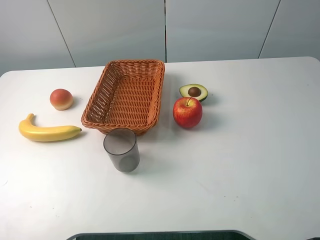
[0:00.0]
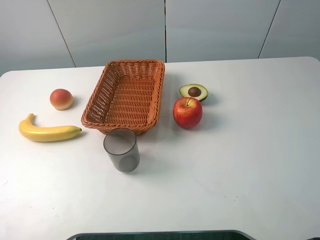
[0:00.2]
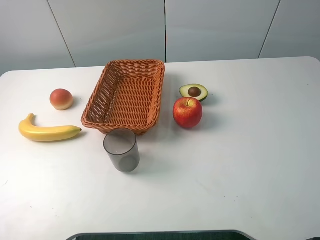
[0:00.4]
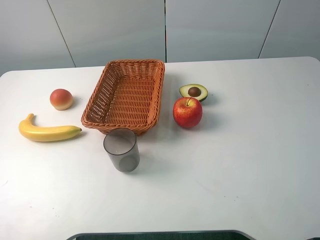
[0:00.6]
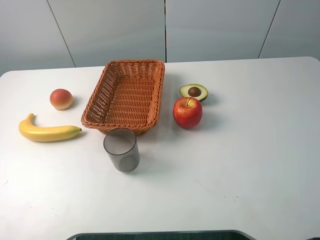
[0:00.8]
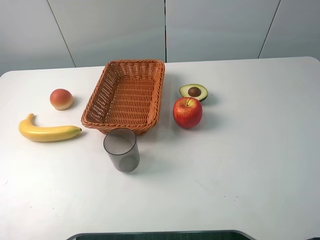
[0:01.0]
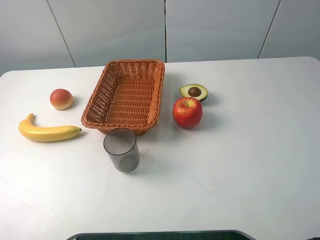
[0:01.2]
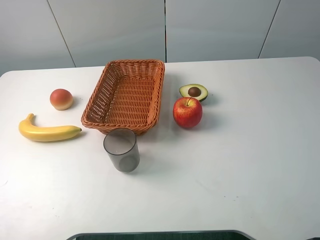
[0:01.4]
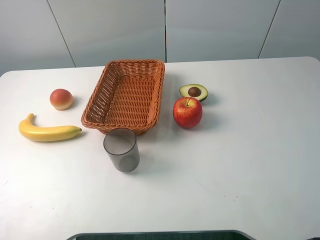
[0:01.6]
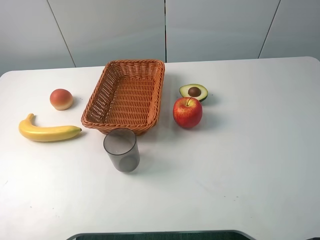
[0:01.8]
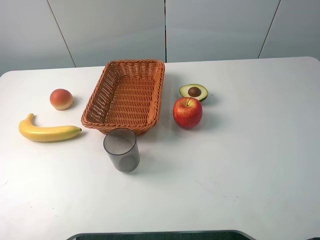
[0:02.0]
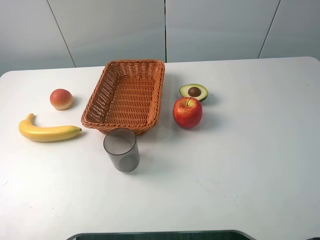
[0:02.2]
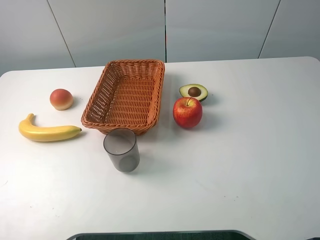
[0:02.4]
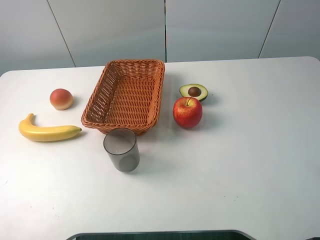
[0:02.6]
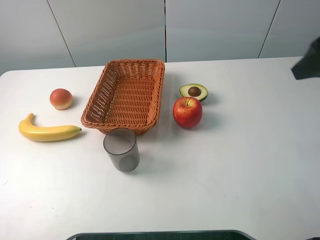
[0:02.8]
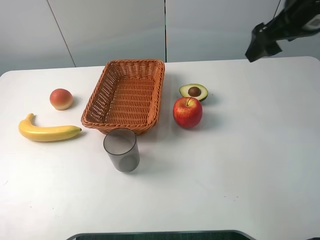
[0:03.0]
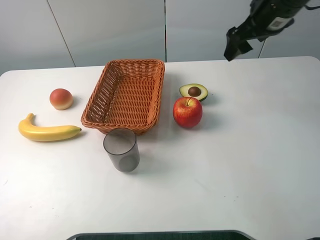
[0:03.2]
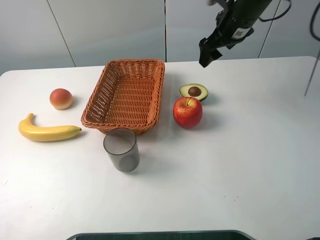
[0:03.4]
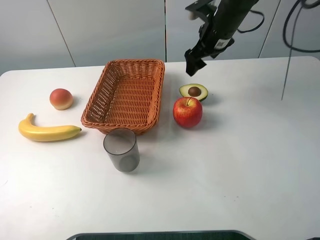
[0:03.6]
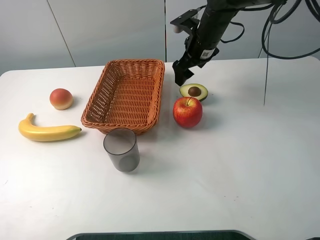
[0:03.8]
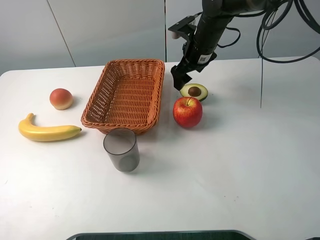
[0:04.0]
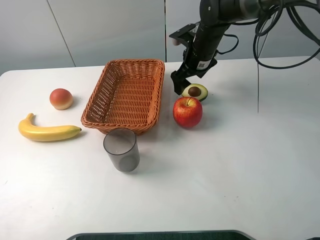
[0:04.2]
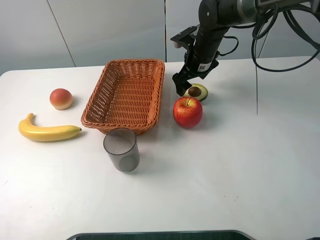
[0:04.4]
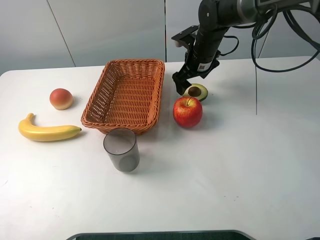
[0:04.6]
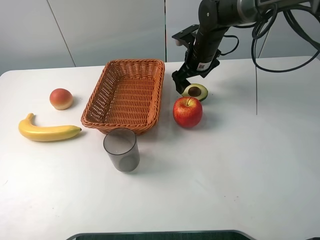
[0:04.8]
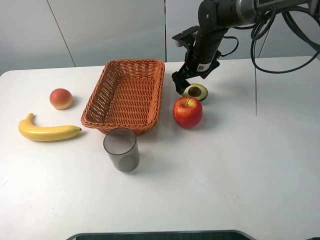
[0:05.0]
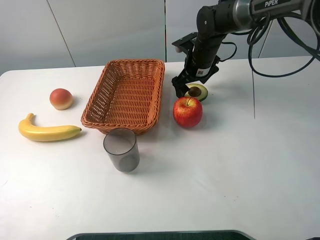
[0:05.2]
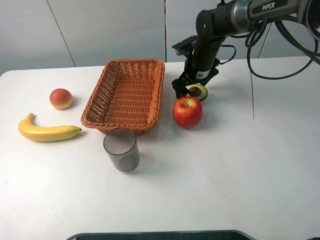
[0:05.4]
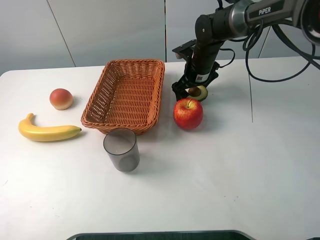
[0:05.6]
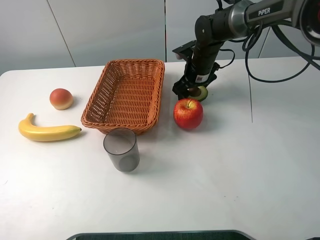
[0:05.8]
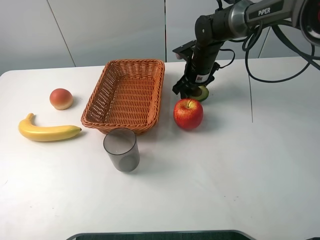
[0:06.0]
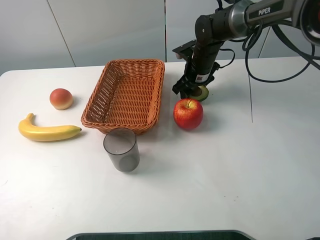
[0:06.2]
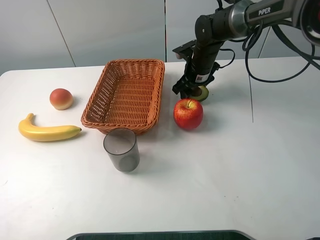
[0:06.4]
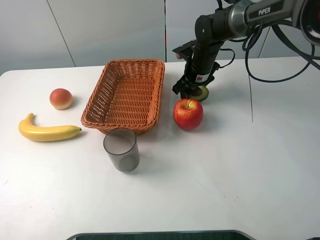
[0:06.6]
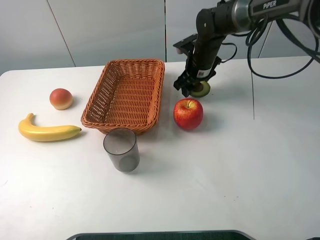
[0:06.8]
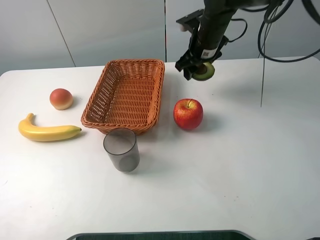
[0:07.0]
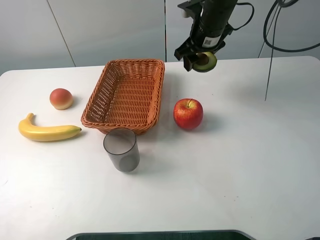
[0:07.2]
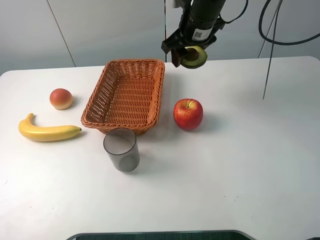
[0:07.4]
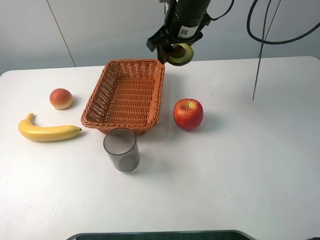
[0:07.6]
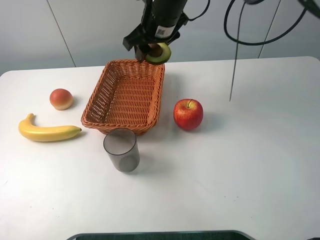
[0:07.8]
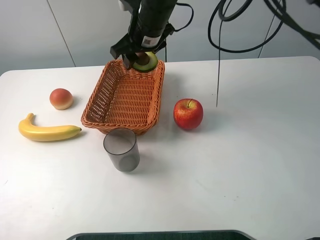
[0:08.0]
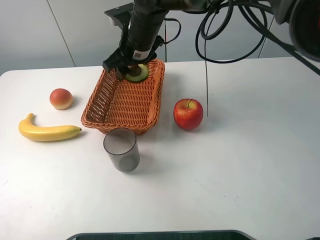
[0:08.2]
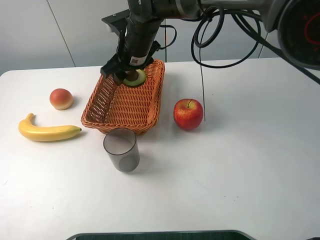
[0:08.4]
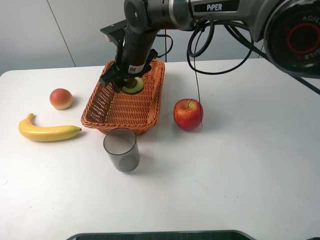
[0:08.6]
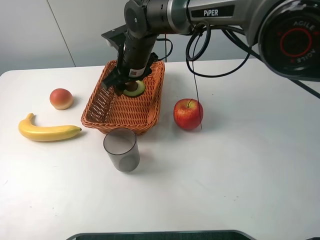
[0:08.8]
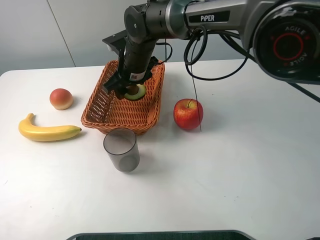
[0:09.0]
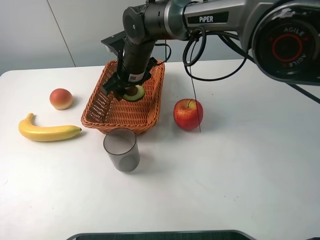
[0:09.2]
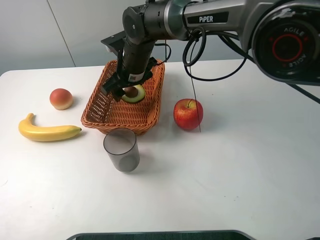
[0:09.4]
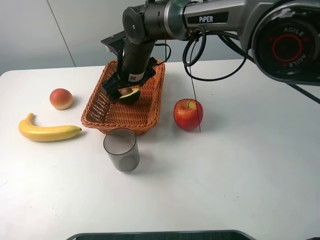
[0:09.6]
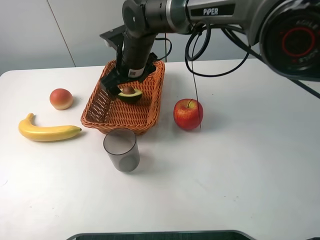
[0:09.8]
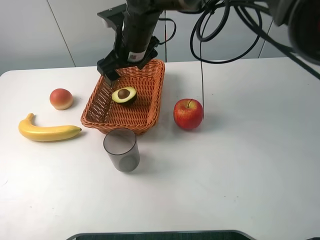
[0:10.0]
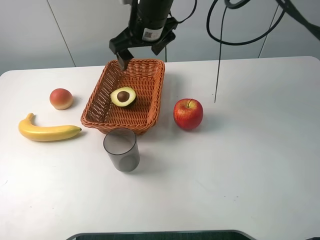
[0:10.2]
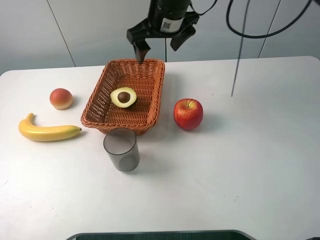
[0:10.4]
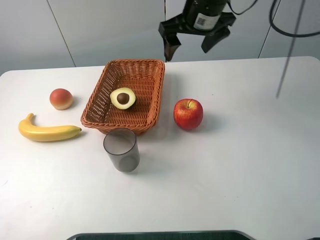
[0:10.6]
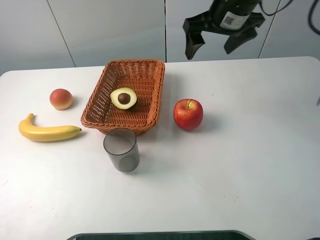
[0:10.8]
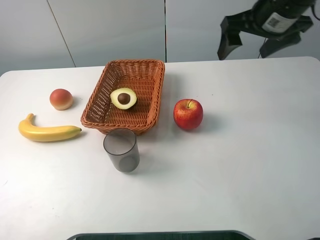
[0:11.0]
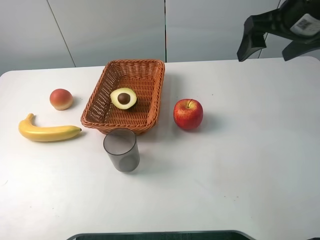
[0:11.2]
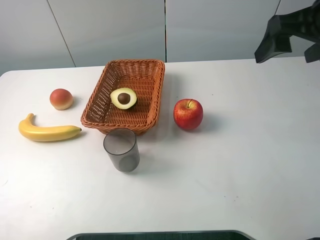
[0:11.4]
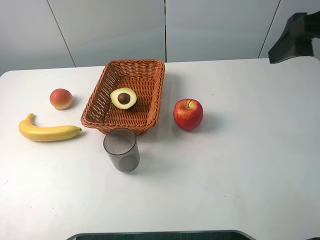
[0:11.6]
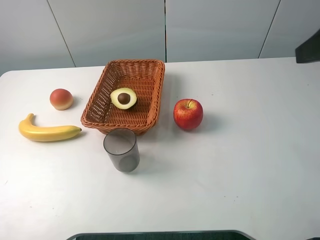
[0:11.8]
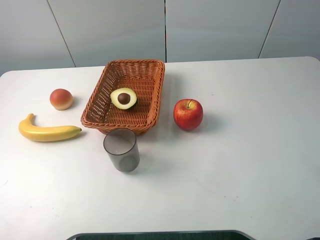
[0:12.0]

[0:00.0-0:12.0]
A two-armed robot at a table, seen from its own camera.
0:00.0 to 0:01.6: The two grippers keep their place.
0:01.6 to 0:03.0: The right gripper is displaced forward by some 30 cm.
0:03.0 to 0:04.4: The right gripper is displaced downward, forward and to the left by approximately 25 cm.
0:04.4 to 0:06.0: The right gripper closes.
0:06.0 to 0:07.6: The right gripper heads upward, covering roughly 15 cm.
0:07.6 to 0:09.0: The right gripper travels to the left and downward by roughly 15 cm.
0:09.0 to 0:10.4: The right gripper travels upward and to the right by about 15 cm, and opens.
0:10.4 to 0:12.0: The right gripper moves backward and to the right, about 35 cm.
